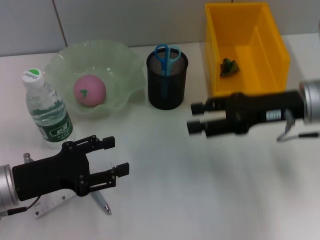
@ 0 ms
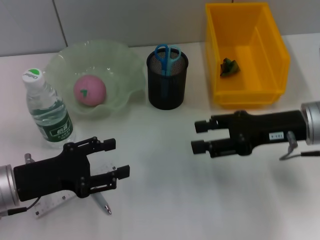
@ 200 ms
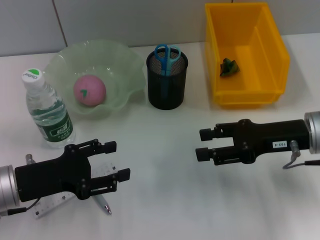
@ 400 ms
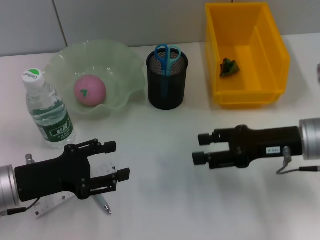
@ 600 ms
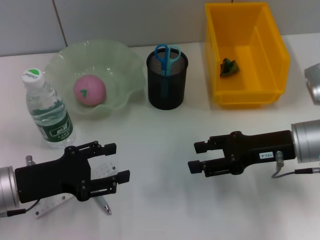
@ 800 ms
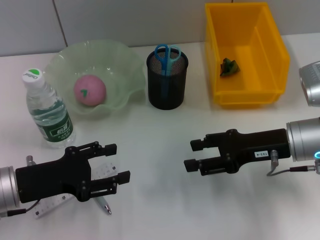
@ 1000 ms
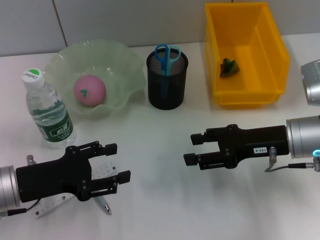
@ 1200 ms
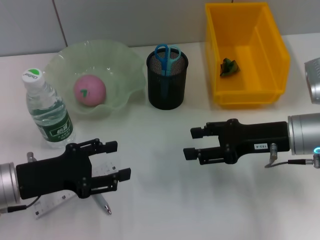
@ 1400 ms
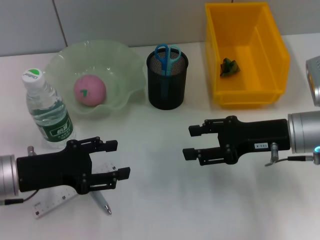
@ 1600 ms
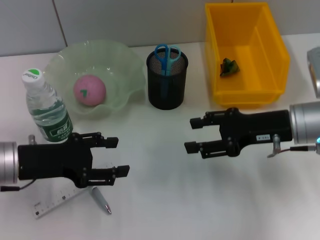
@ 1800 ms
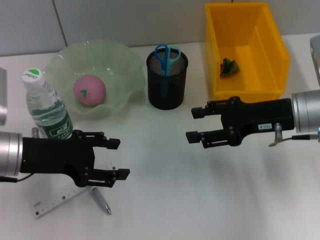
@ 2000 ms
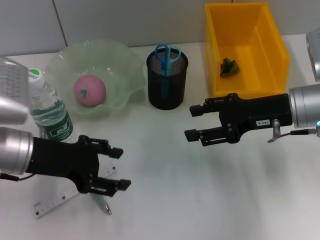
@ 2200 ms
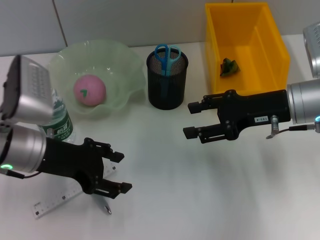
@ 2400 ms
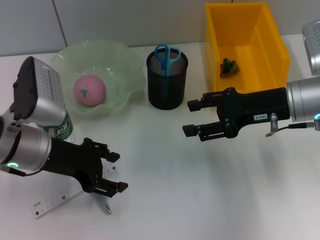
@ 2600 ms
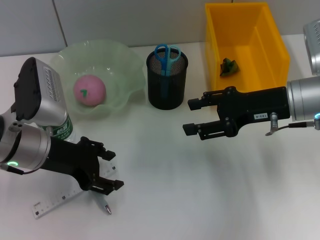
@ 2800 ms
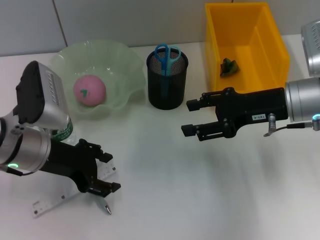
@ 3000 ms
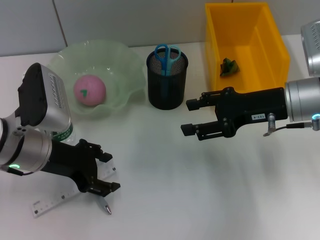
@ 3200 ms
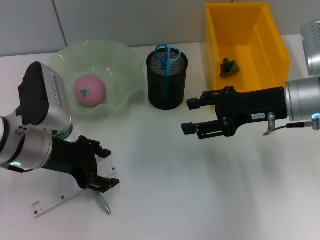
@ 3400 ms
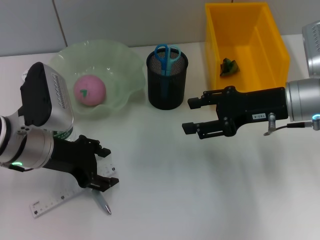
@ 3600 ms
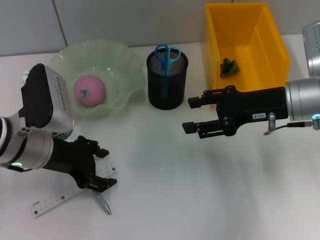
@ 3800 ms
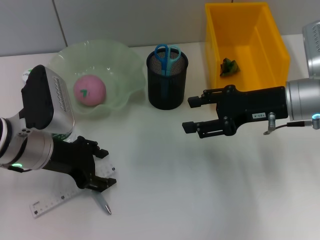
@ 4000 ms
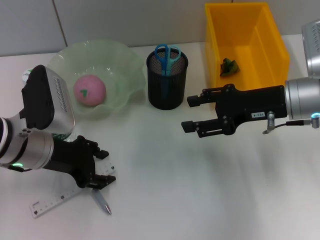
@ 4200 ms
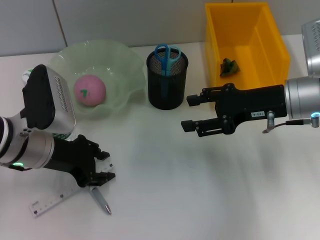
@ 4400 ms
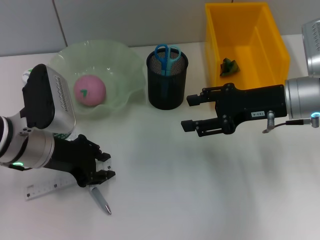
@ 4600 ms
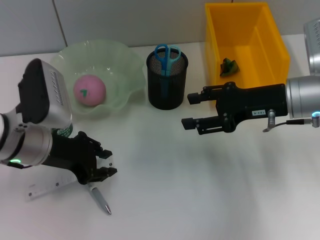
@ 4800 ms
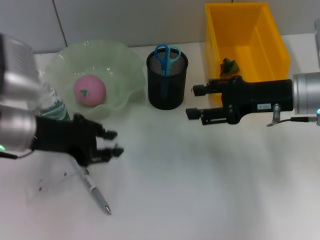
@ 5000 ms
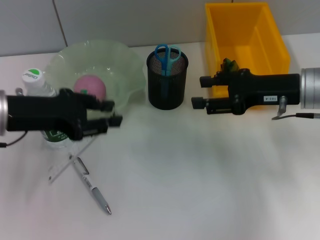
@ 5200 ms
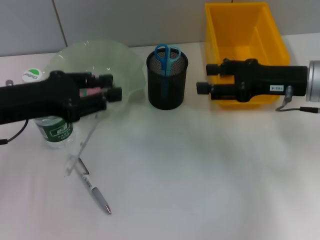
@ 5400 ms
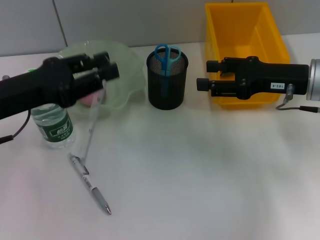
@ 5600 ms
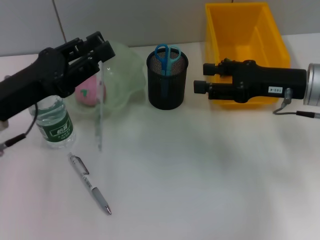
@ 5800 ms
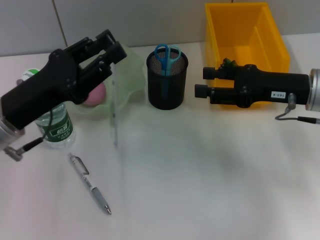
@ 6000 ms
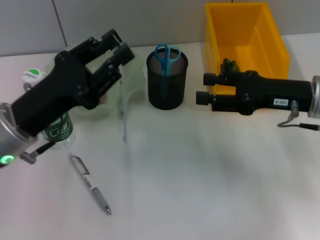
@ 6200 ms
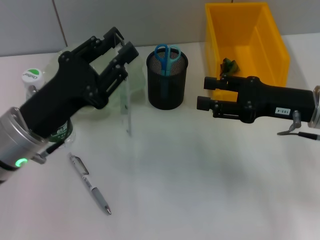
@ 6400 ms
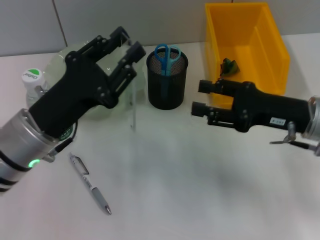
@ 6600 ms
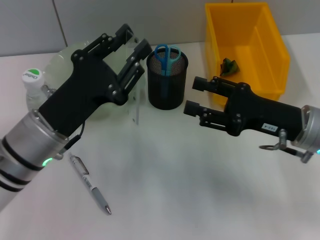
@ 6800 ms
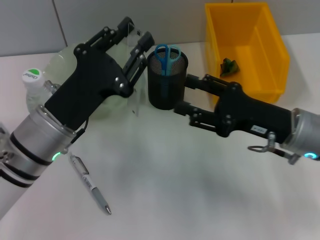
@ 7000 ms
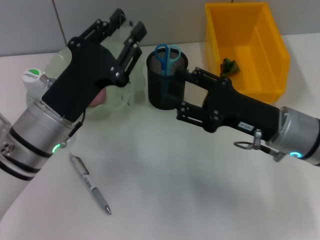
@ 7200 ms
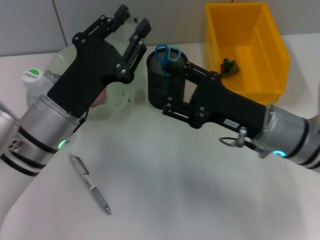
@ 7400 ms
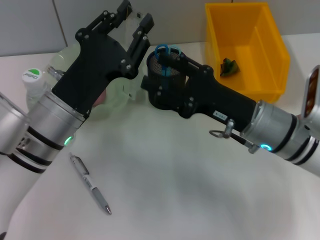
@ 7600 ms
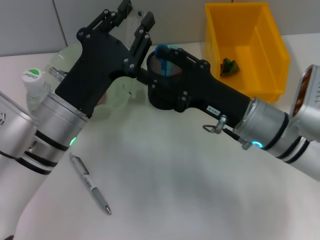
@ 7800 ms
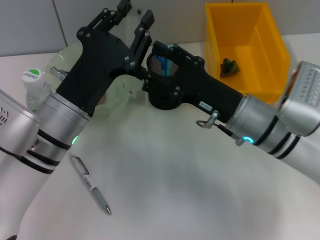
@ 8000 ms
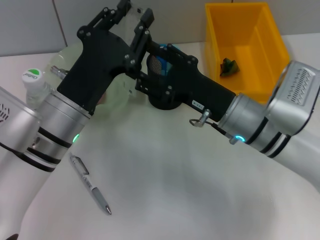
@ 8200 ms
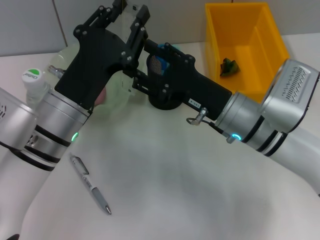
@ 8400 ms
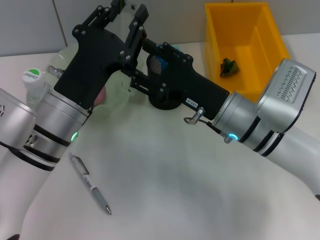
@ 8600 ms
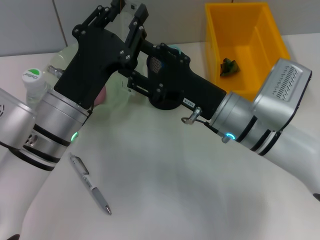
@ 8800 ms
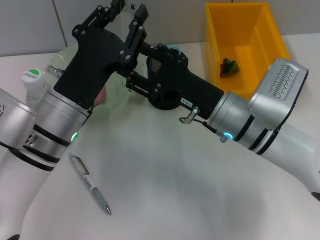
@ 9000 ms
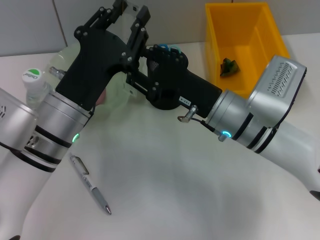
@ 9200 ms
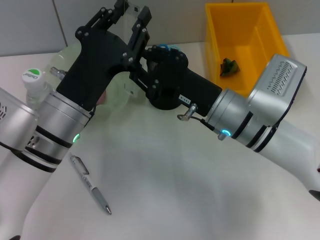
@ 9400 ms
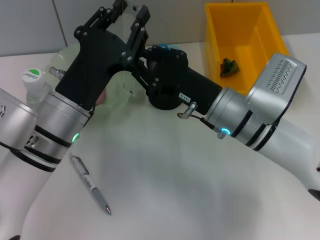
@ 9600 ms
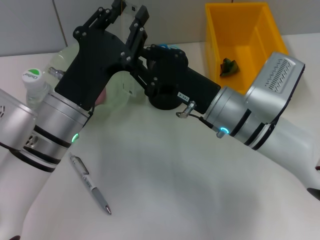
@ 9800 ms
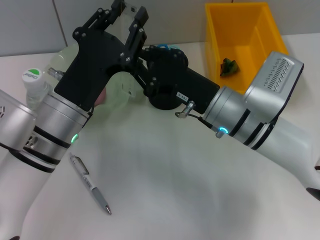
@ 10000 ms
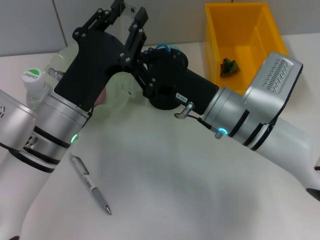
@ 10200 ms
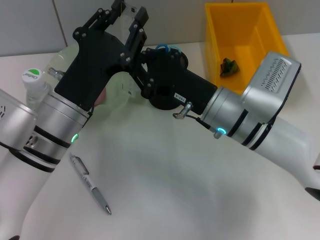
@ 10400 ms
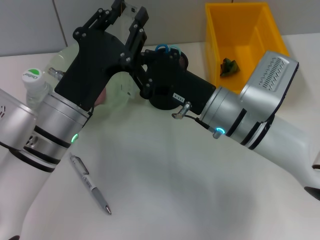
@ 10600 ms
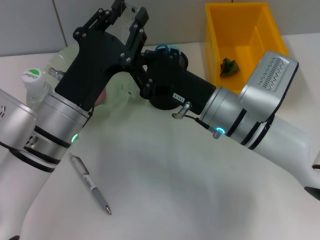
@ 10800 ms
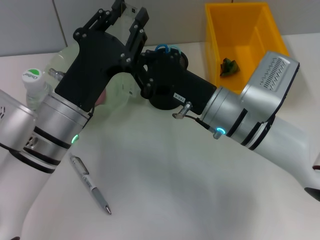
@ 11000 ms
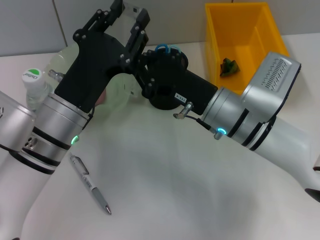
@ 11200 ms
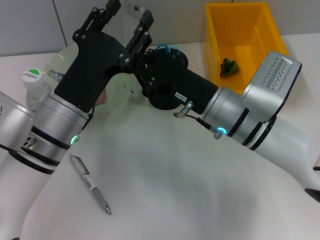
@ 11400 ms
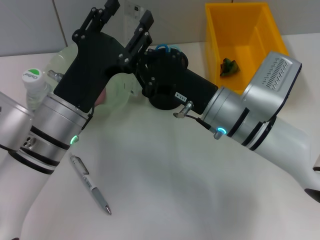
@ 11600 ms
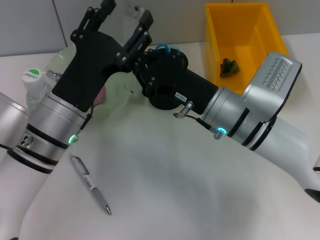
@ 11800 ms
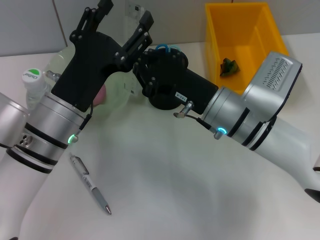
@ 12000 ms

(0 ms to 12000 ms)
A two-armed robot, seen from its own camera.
Step, 0 ms - 4600 ms: Grab the ruler with the left hand.
Step, 4800 ms - 11800 ms: Pass the ruler from the left hand to the right hand.
0 ms - 1600 ms: There are only small adjustments of the grippers.
1600 ms - 3000 ms: The left gripper moves roughly 5 cm.
3000 ms - 4400 ms: The grippers stay close to where they were, moving slightly.
6000 ms - 7600 ms: The left gripper heads to the right, covering approximately 5 cm. Meanwhile the right gripper heads to the left, covering some 10 cm.
7600 ms - 9000 ms: The grippers stay close to where they were, moving slightly.
9000 ms - 10400 ms: The right gripper closes.
10400 ms - 12000 ms: The left gripper opens its fingers.

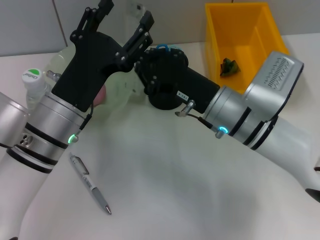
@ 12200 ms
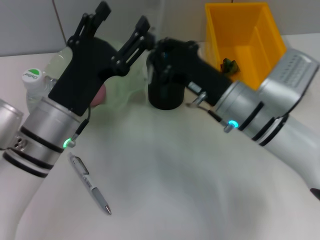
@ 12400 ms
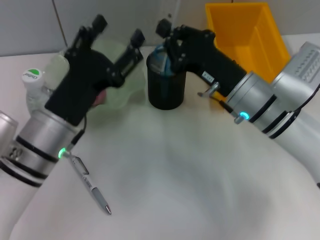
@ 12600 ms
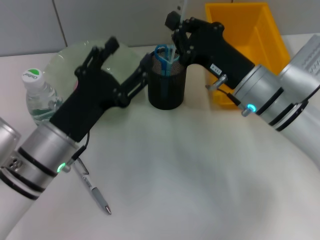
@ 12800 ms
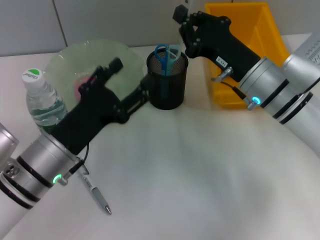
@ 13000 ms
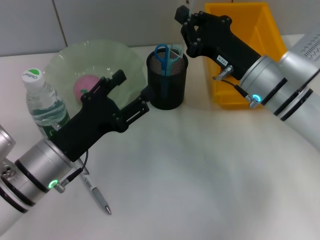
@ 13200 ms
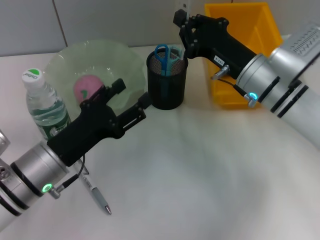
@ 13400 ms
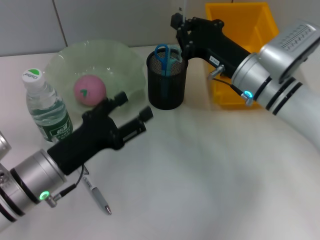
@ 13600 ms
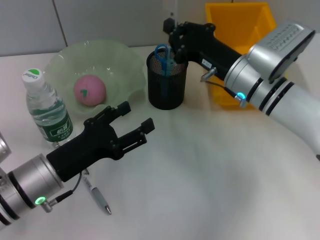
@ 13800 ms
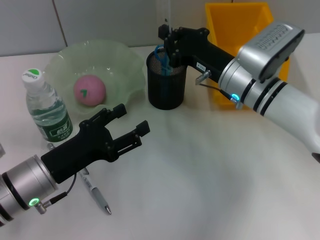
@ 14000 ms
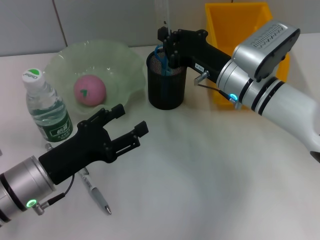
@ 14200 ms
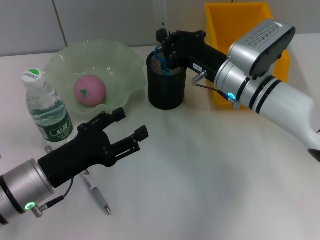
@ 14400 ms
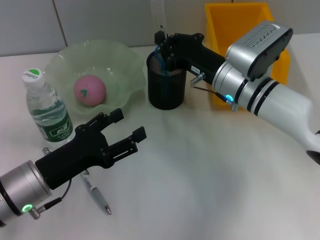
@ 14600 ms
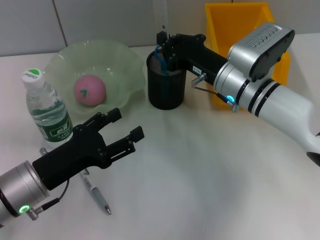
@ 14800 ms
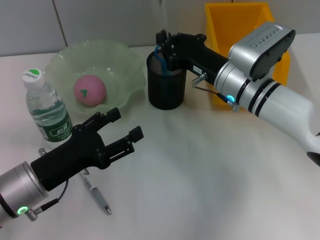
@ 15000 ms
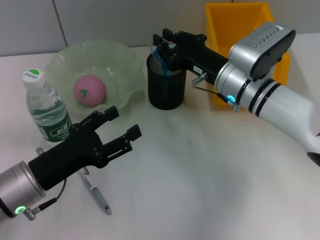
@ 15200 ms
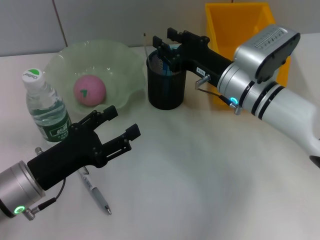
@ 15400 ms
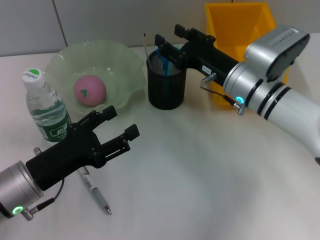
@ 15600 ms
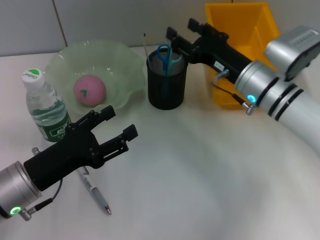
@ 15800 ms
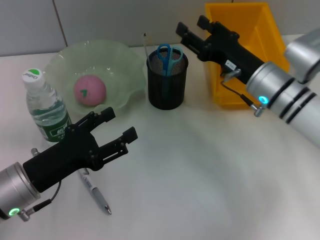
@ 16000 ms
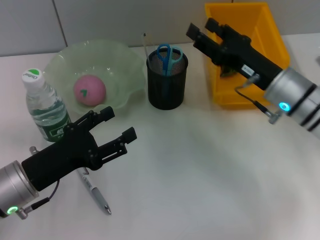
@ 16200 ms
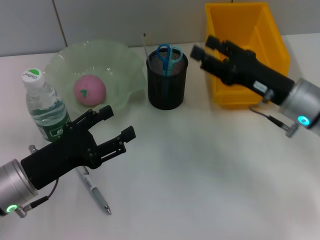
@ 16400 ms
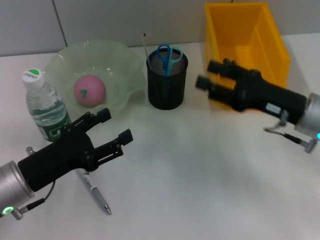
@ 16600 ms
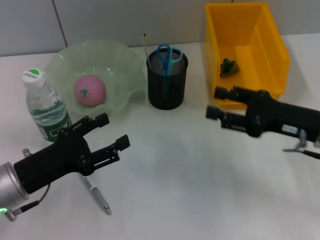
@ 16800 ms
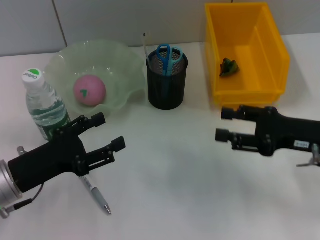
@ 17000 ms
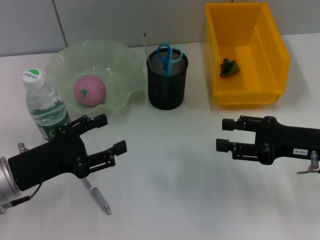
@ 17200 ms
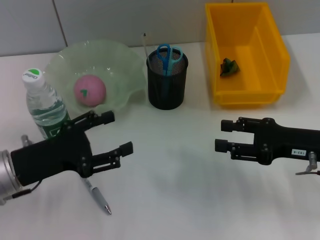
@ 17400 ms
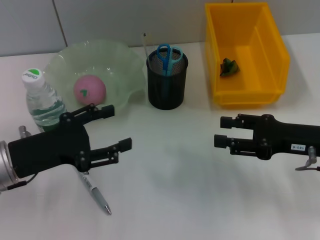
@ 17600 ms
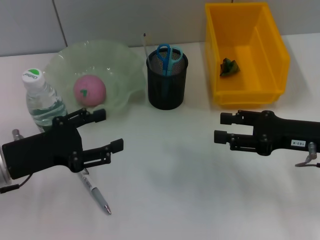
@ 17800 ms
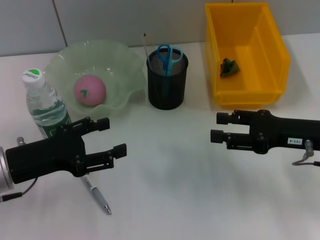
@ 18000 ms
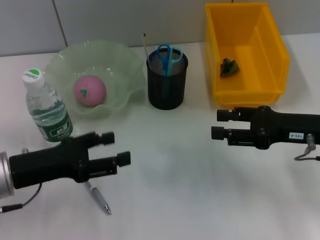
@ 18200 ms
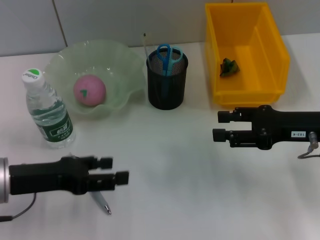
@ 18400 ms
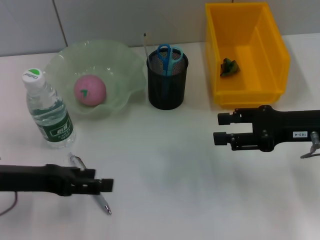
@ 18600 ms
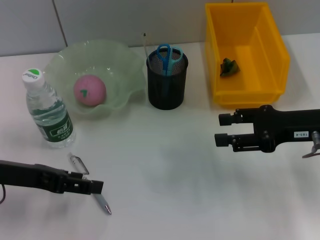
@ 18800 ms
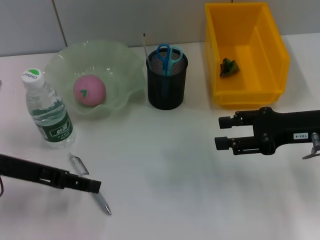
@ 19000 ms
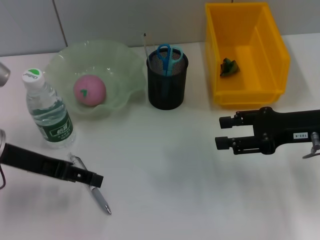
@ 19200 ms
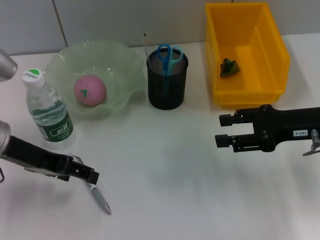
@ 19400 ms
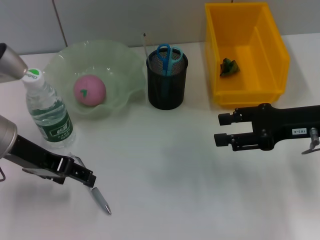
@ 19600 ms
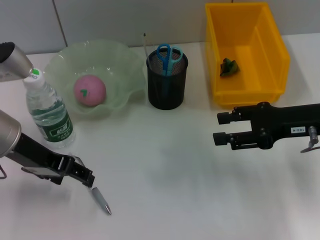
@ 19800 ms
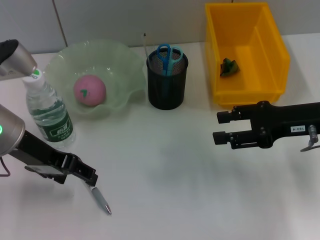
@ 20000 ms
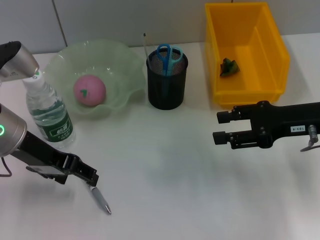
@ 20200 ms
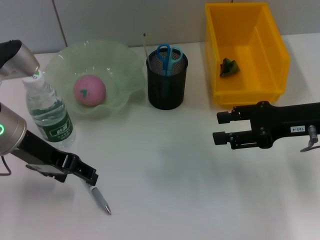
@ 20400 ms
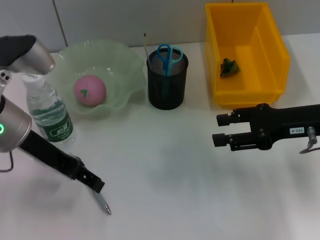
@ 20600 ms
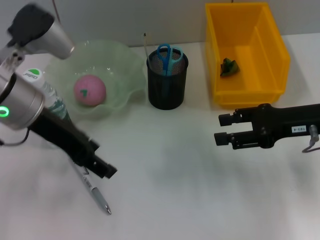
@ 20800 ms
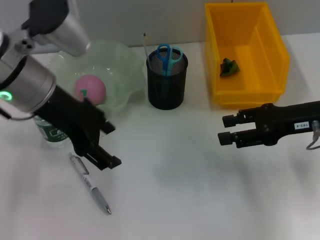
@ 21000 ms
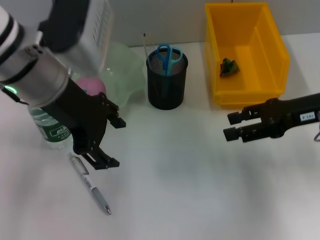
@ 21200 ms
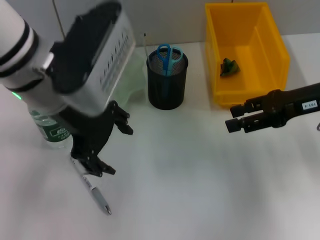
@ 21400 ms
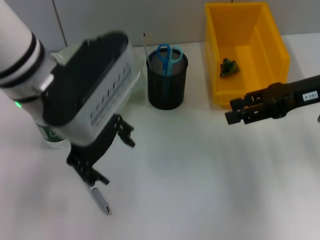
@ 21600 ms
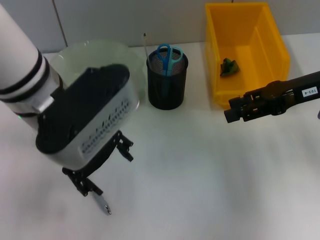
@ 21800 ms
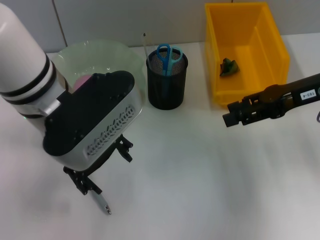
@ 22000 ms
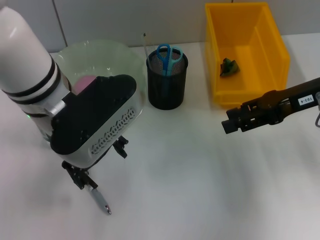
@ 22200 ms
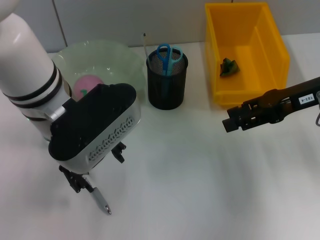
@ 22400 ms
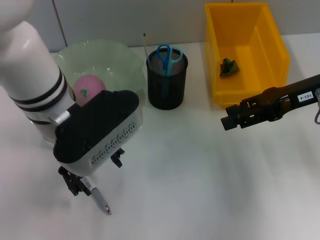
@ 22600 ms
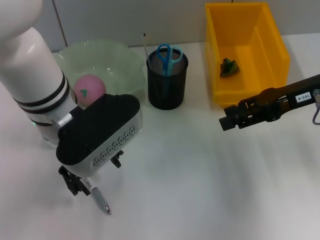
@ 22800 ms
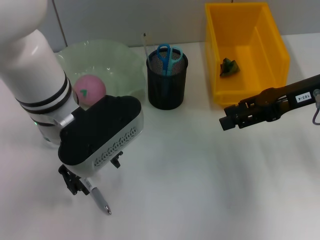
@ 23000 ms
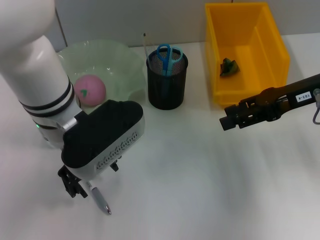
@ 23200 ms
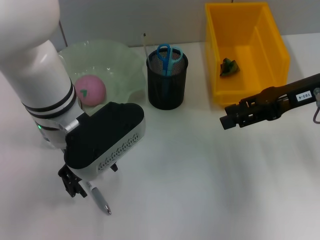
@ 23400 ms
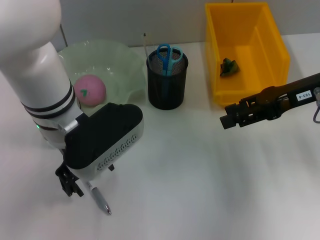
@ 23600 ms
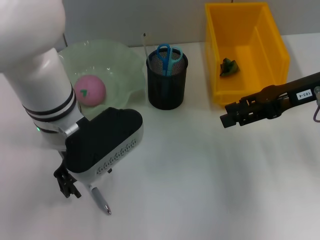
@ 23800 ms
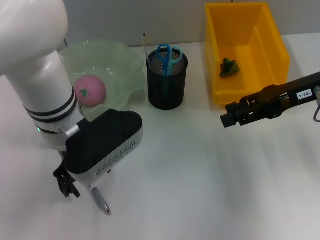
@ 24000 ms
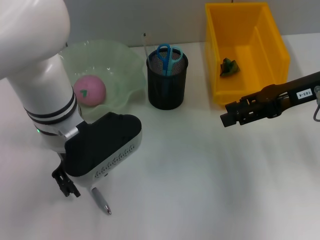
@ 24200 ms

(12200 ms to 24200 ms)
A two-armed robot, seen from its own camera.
Step, 12200 ms - 15600 ms: Place the ruler into the pen holder with the right hand.
12200 ms - 13800 ms: The right gripper is displaced forward by roughly 5 cm; the left gripper heads downward and to the left, covering approximately 10 cm.
13800 ms - 15200 ms: The grippers stay close to where they were, moving slightly.
15200 ms - 16600 ms: The right gripper moves to the right and backward, some 15 cm, and opens up.
18200 ms - 19800 ms: The left gripper travels upward and forward by about 10 cm.
19800 ms - 21200 ms: The left gripper shifts some 10 cm upward and to the right.
21200 ms - 22600 ms: The left gripper ends up about 5 cm from where it was.
22600 ms - 24200 ms: There are only small adjustments of the grippers.
